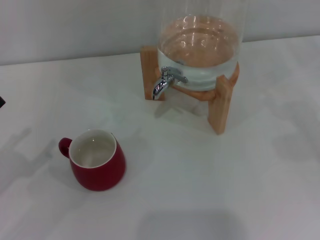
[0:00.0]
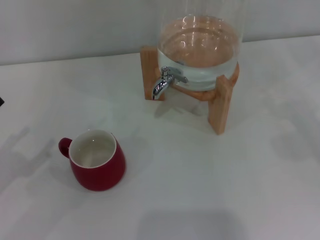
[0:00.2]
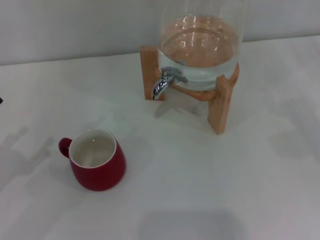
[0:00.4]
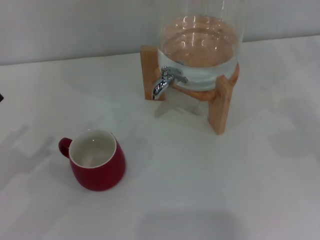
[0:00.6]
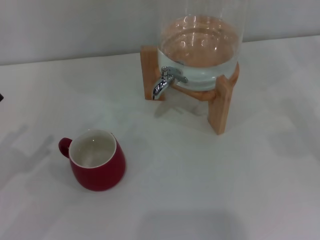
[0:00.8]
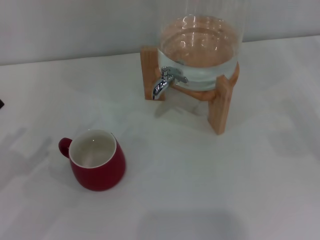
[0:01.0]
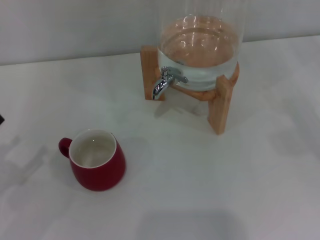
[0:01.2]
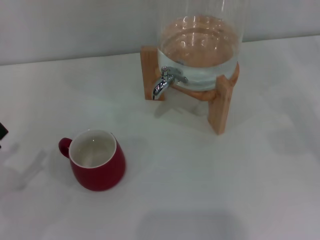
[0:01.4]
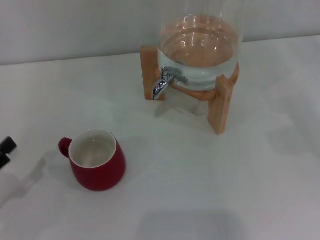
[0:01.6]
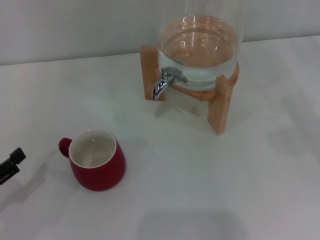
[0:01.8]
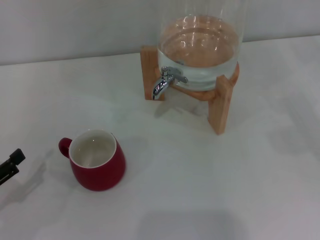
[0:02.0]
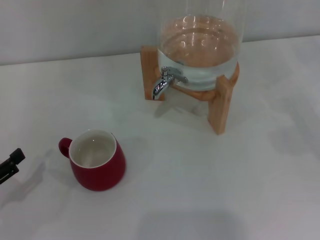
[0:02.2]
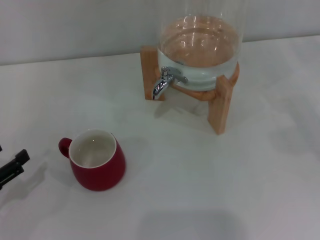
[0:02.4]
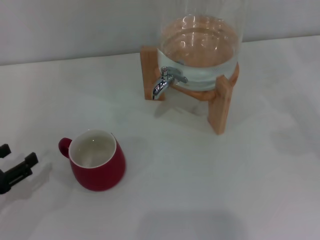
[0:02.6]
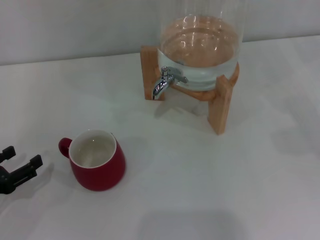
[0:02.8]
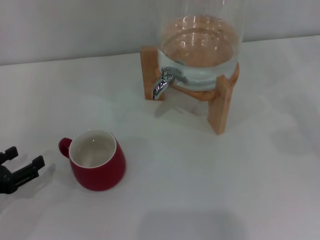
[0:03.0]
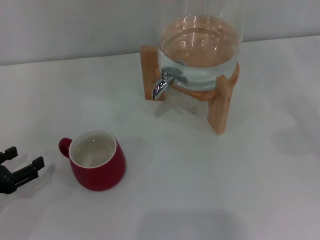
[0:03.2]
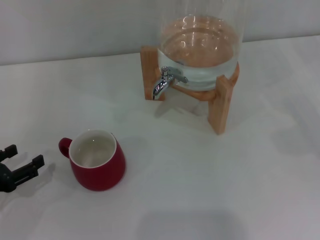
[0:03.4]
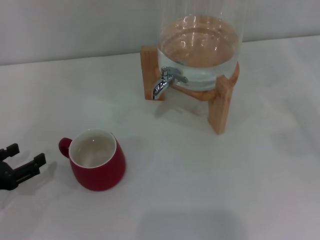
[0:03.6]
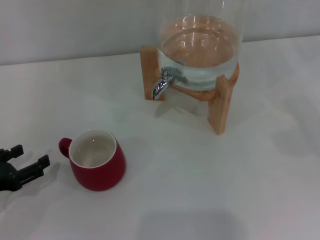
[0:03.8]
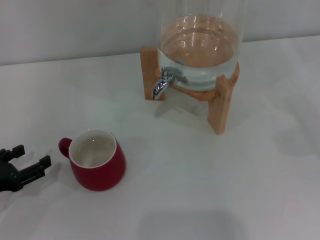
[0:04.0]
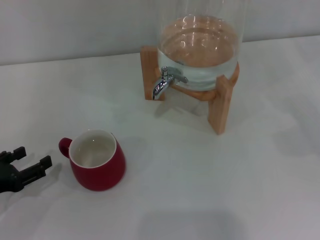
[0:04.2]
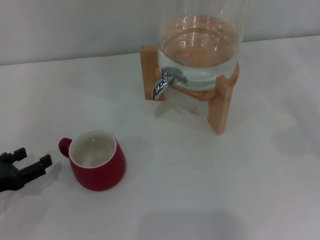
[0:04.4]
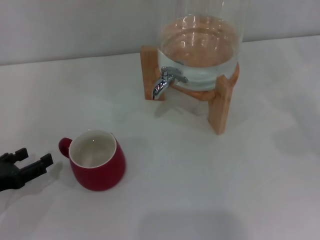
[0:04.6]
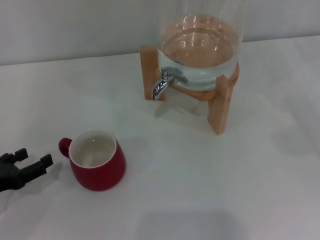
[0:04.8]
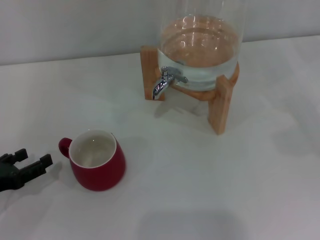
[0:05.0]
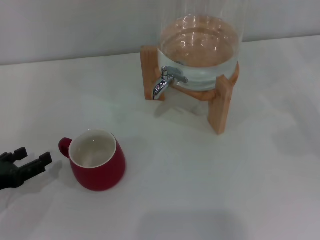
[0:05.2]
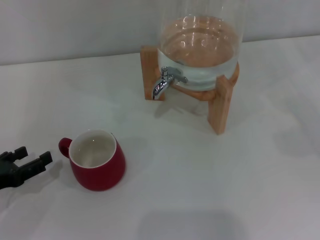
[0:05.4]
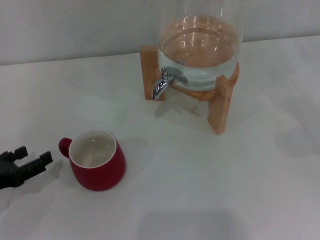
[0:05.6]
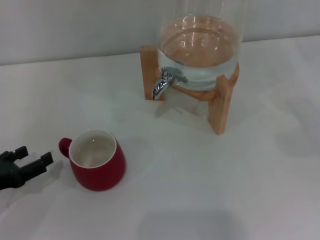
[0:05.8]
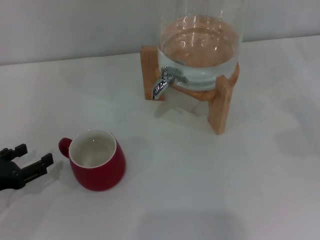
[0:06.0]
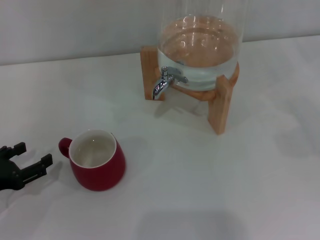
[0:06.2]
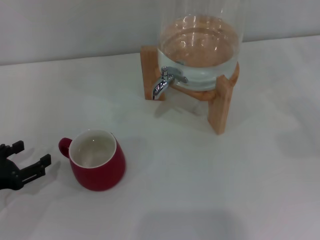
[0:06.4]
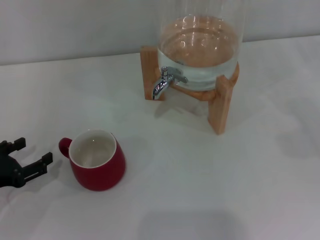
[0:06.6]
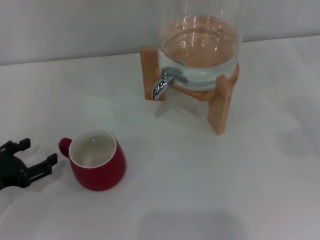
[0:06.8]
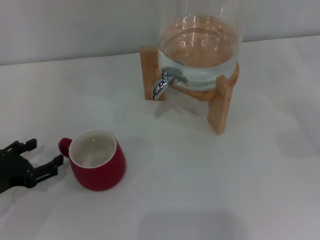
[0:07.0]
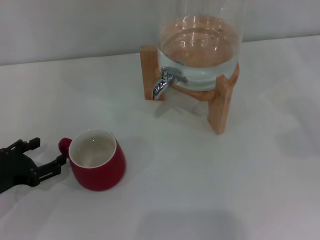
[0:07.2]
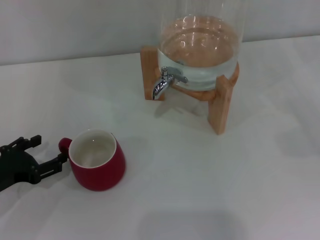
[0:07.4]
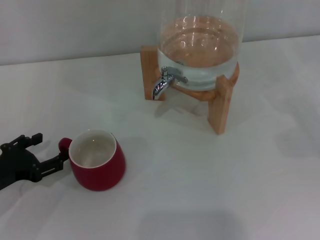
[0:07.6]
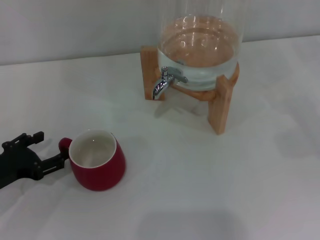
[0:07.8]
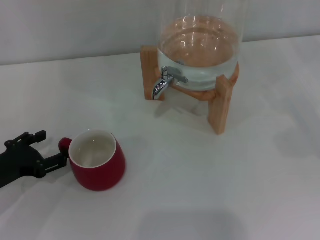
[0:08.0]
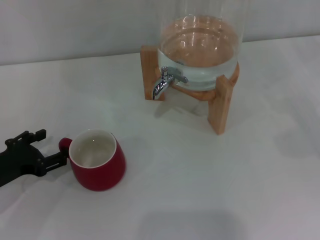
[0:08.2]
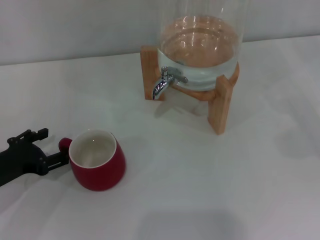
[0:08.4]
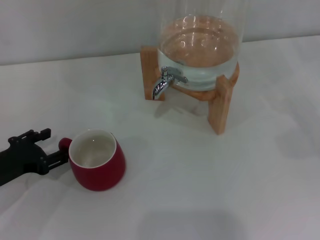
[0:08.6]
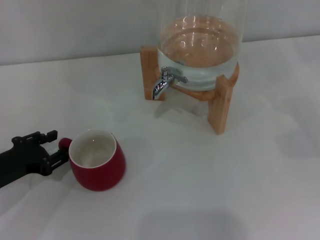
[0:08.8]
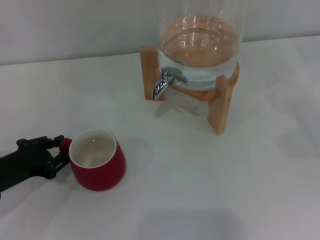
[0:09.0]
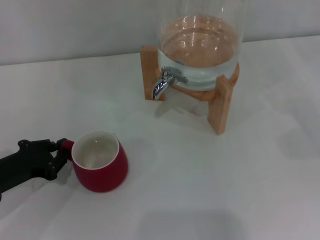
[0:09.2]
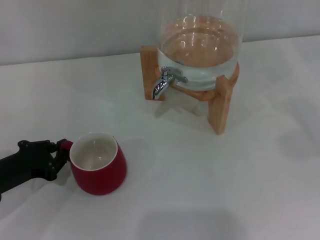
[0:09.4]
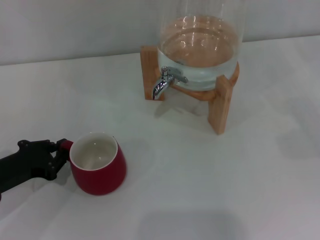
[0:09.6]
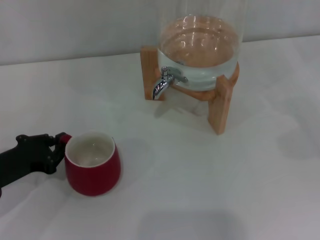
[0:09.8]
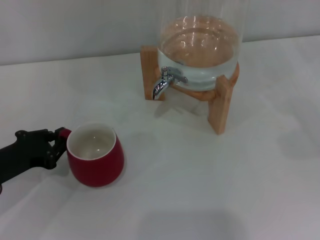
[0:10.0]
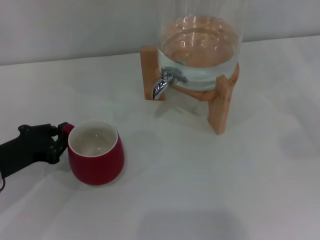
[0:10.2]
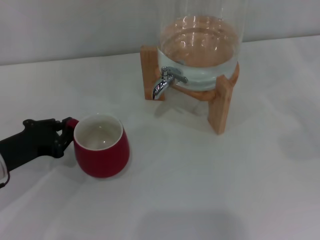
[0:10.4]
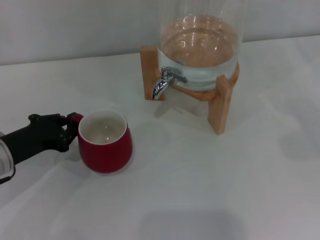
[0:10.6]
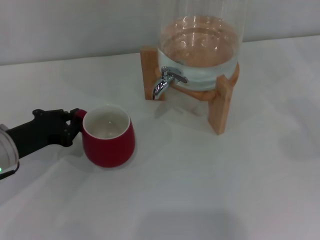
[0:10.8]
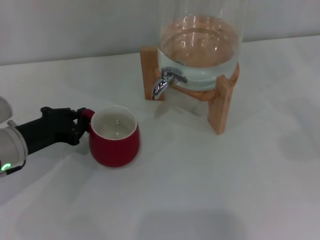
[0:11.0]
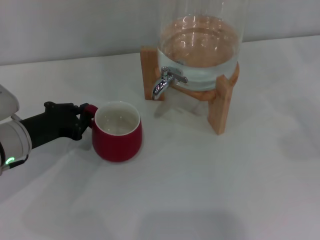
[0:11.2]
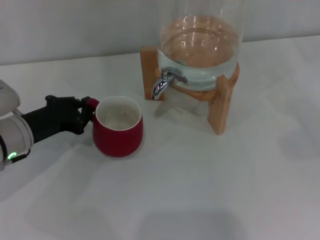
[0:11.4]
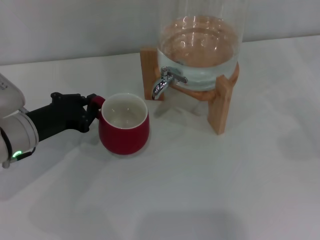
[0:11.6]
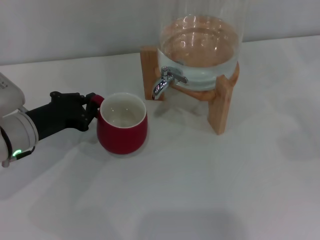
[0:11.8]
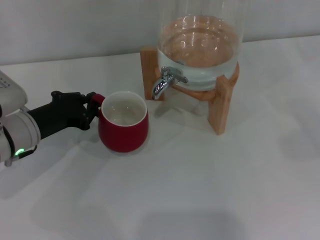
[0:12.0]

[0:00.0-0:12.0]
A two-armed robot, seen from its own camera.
Task of the whole recording: the left gripper pick up the red cup and place it horizontally under the faucet, the right gripper turn on the faucet to fill the cup, and then turn off the faucet.
0:00.0 to 0:01.6: The left gripper goes some 5 cm downward.
0:01.6 to 0:03.0: The grippers move only a little.
0:03.0 to 0:04.4: There are only small adjustments of the grippers.
0:06.0 to 0:07.6: The grippers make only small movements.
0:07.6 to 0:09.0: The left gripper closes up.
0:09.0 to 0:10.4: The left gripper closes up.
0:10.4 to 0:12.0: The left gripper changes place by about 5 cm.

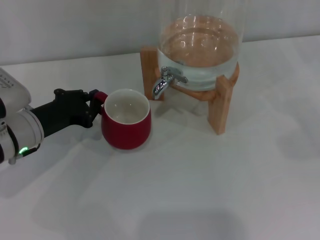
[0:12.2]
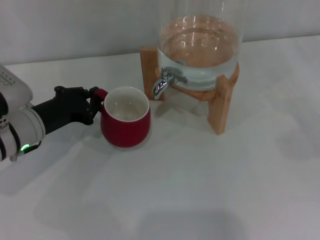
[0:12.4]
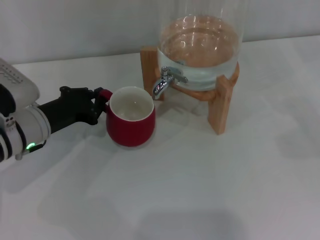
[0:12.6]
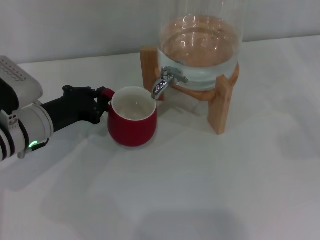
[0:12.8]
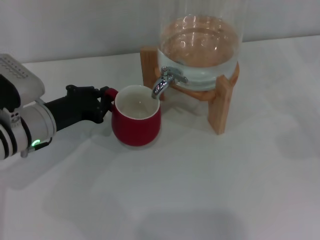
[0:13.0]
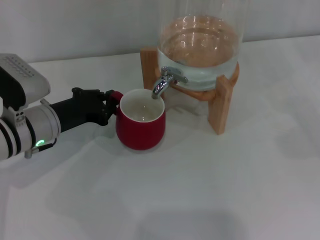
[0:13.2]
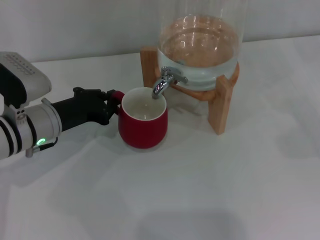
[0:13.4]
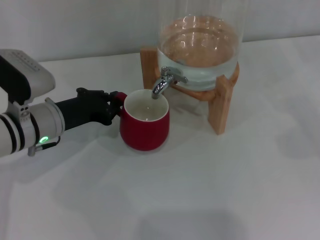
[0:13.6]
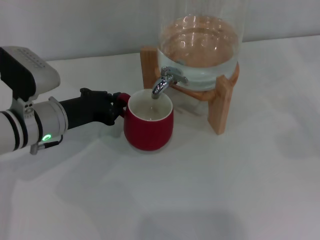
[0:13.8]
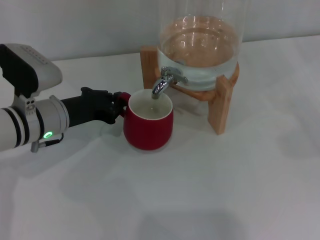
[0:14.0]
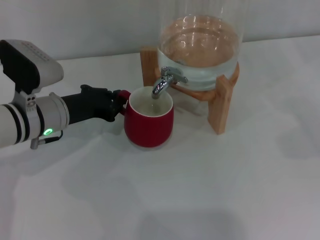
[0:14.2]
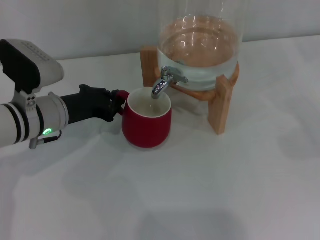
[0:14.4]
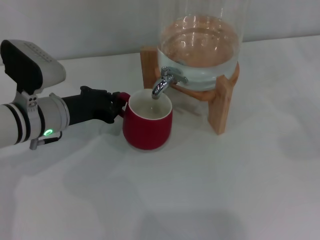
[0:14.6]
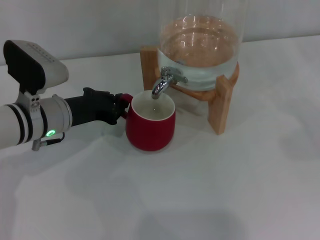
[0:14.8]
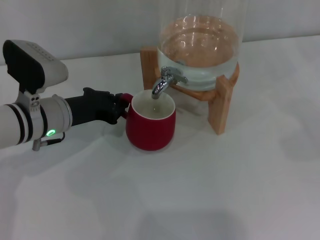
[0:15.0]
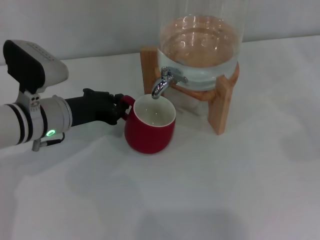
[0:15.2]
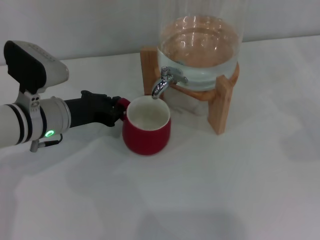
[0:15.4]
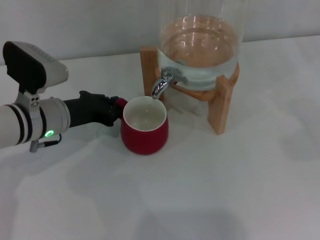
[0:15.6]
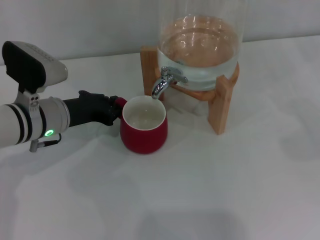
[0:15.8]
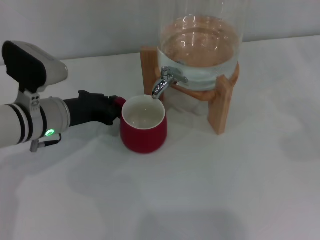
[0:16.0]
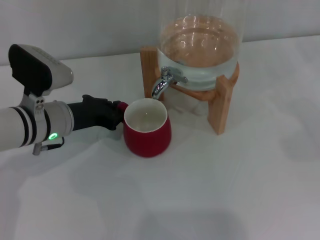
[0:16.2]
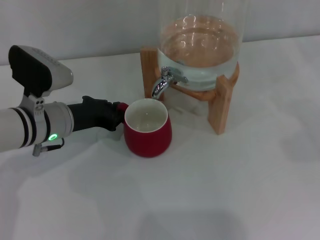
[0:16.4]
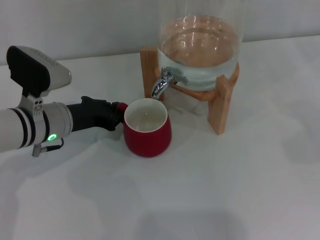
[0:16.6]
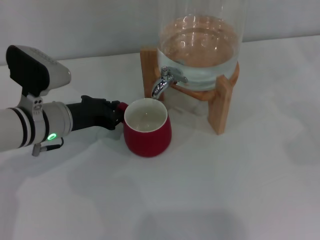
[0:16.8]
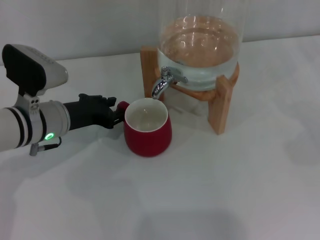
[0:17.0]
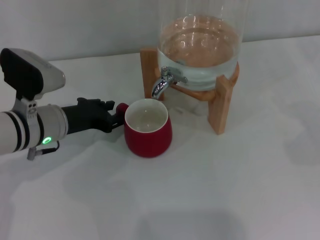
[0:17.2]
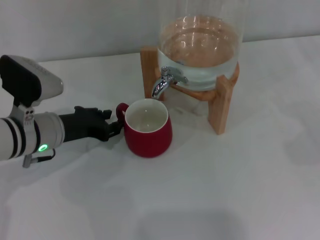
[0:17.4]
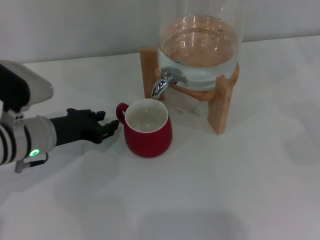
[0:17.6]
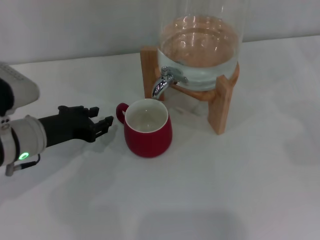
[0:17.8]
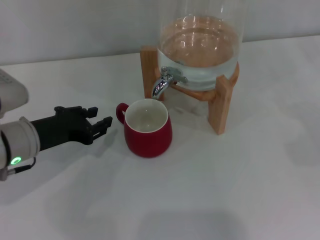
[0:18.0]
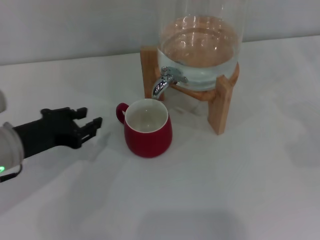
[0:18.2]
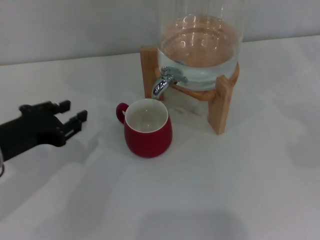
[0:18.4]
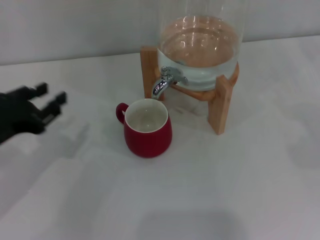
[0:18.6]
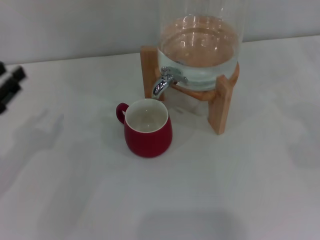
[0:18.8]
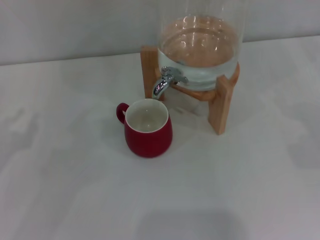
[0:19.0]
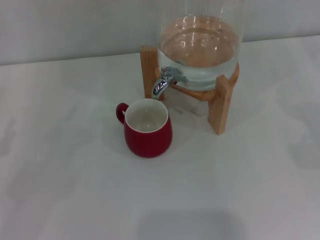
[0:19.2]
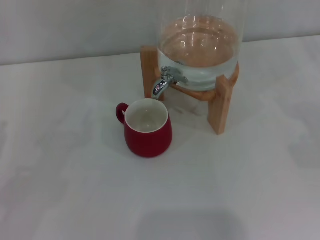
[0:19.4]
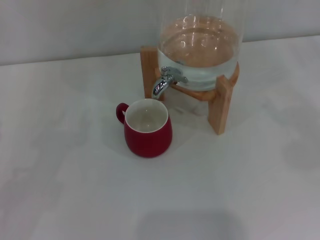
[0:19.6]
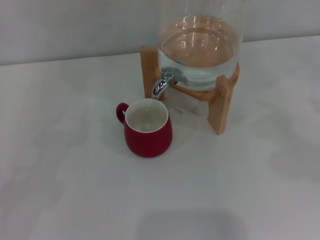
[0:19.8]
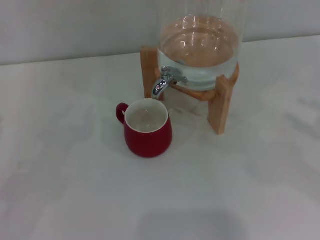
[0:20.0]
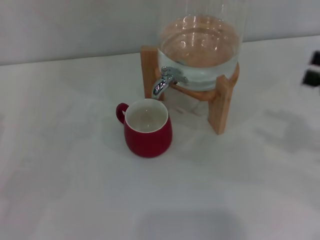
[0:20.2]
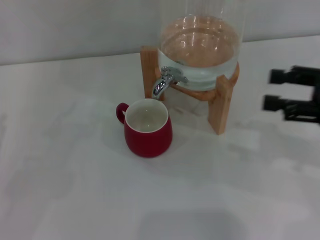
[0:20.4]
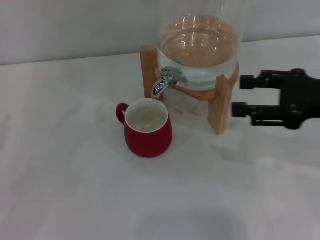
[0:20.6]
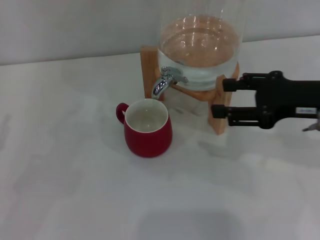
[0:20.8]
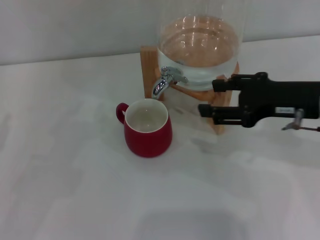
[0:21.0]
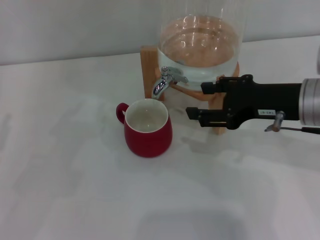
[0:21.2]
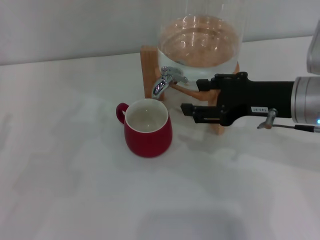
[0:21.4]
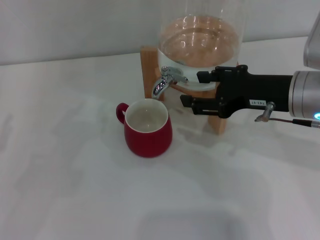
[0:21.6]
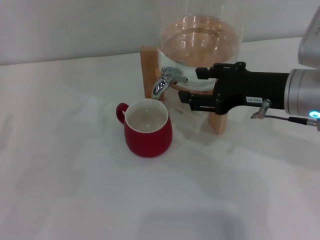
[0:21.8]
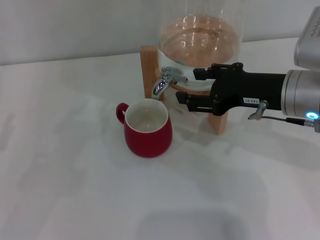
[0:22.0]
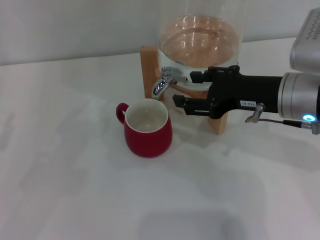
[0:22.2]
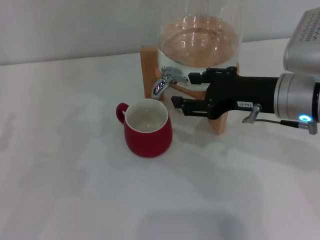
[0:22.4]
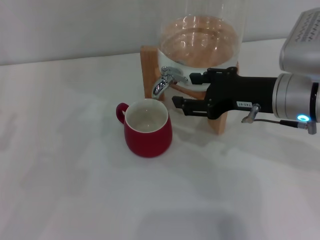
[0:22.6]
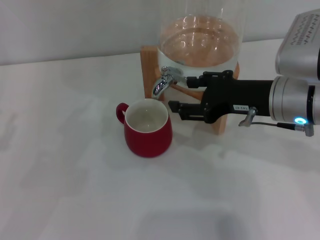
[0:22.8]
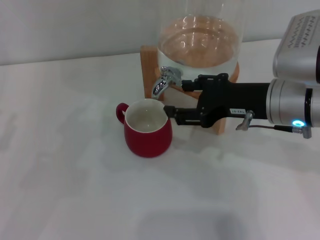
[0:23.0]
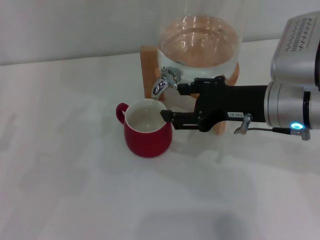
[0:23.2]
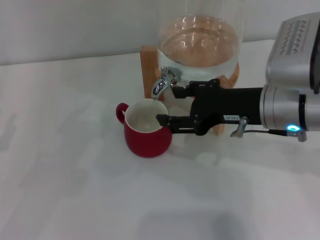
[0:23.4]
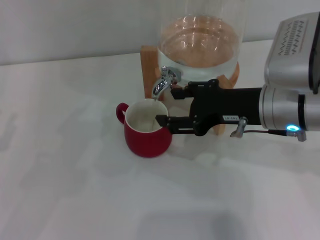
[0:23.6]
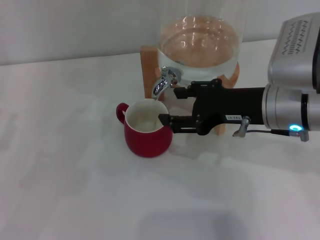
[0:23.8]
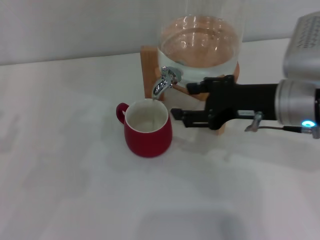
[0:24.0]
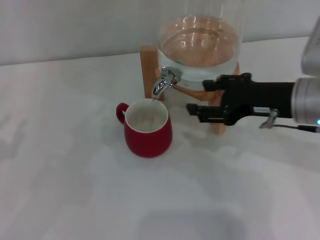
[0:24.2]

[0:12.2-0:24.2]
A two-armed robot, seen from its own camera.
Task of the whole recording: the left gripper pick up the red cup and place it horizontally under the faucet, the right gripper turn on the faucet to fill the cup, and then turn off the faucet.
Step, 0:12.2 to 0:18.0: Move the cup beneath the water dispenser nozzle with the left gripper.
Step, 0:18.2 to 0:24.2: Open the dispenser valve and fill the cup with water with the right gripper.
0:12.2 to 0:13.8: There are only small adjustments of the grippers.
0:13.8 to 0:15.2: Both grippers stay put.
0:15.2 to 0:16.6: Both grippers stay put.
0:16.6 to 0:18.2: The left gripper moves backward and to the left, approximately 10 cm.
0:18.2 to 0:19.8: The left gripper travels to the left and backward by about 15 cm.
0:19.8 to 0:21.2: The right gripper moves to the left, about 20 cm.
0:21.2 to 0:24.2: The grippers make only small movements.
